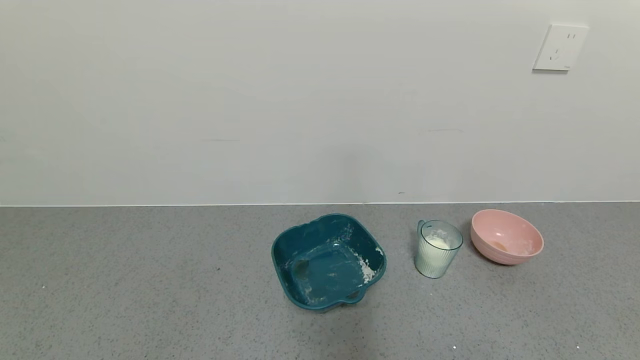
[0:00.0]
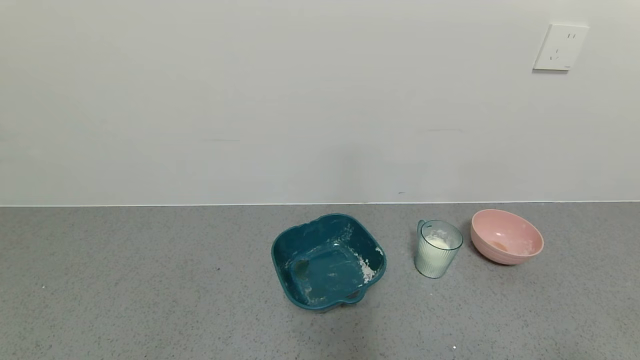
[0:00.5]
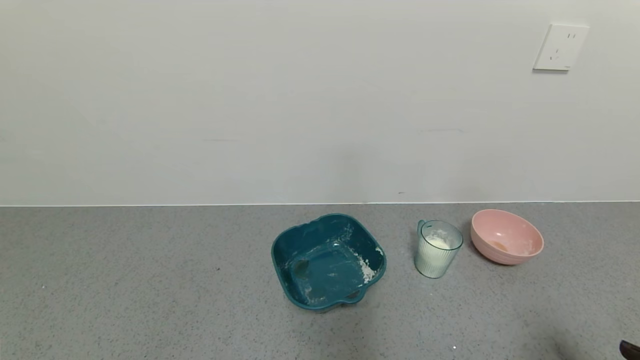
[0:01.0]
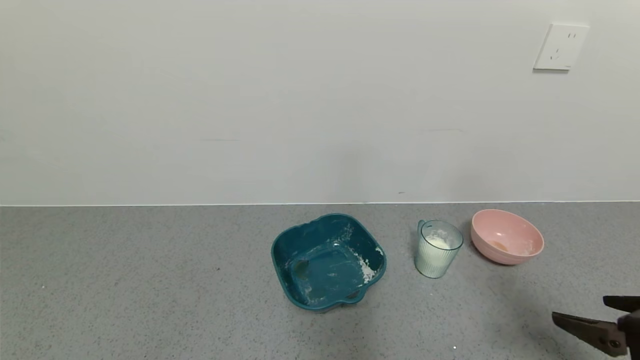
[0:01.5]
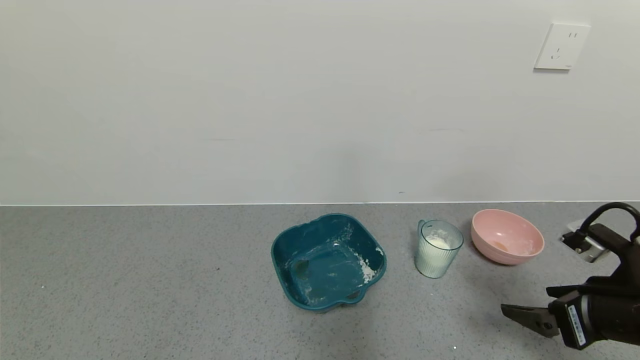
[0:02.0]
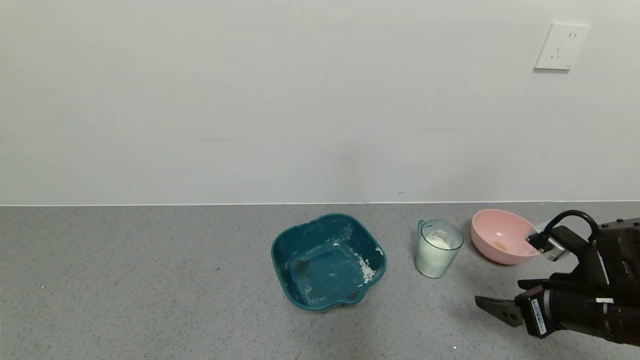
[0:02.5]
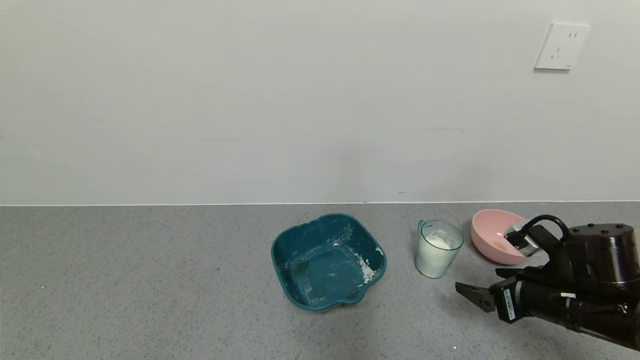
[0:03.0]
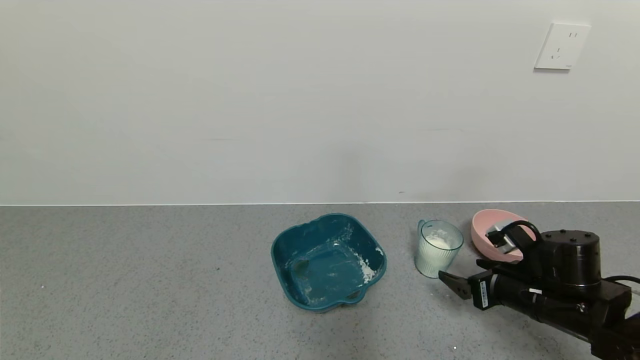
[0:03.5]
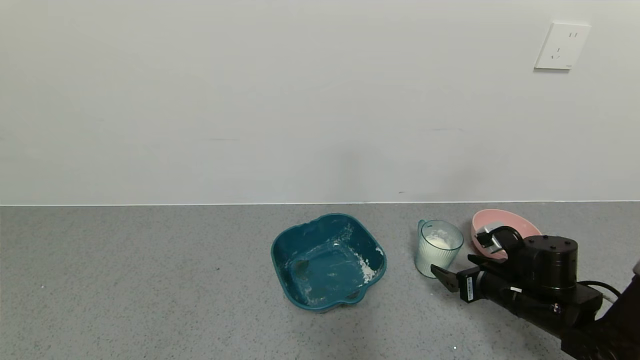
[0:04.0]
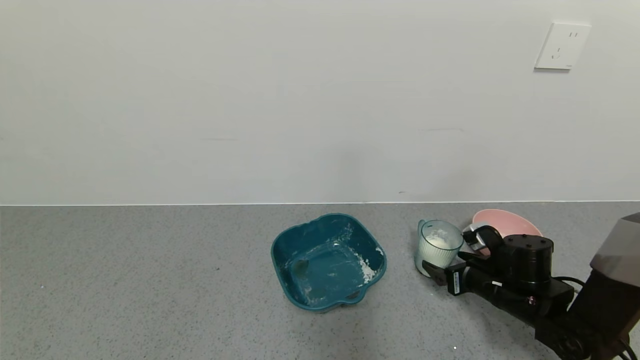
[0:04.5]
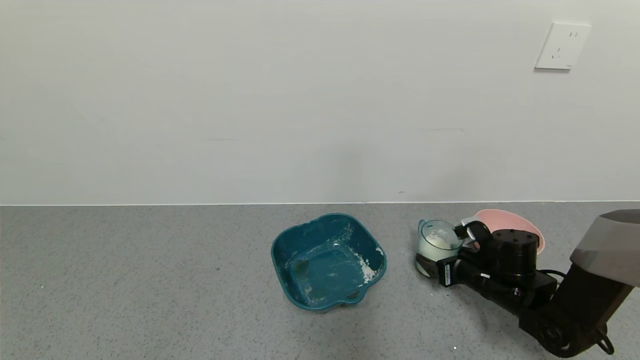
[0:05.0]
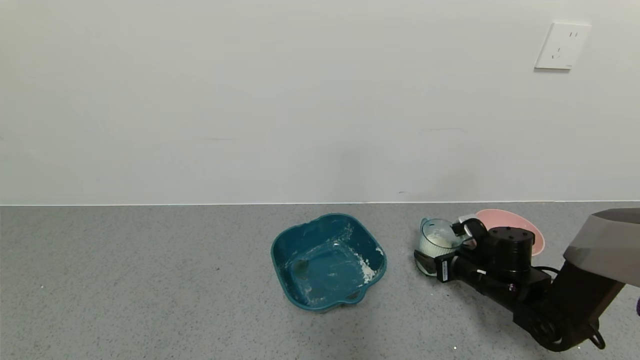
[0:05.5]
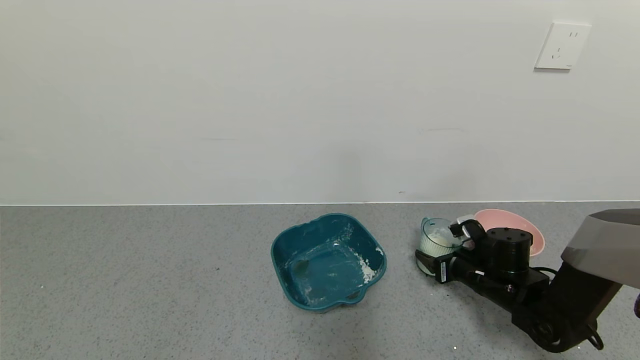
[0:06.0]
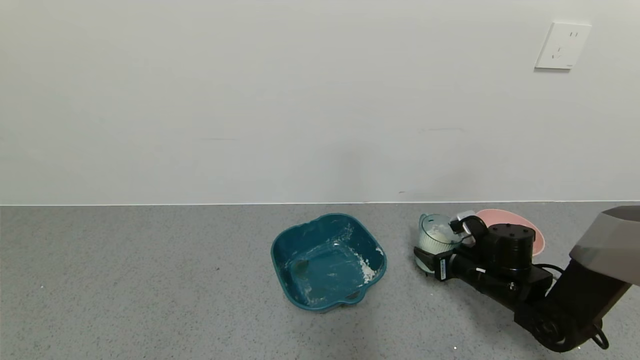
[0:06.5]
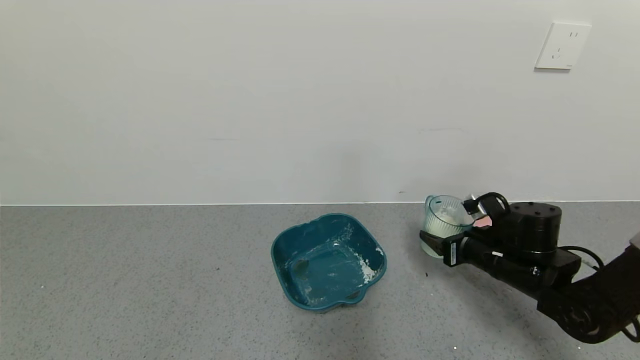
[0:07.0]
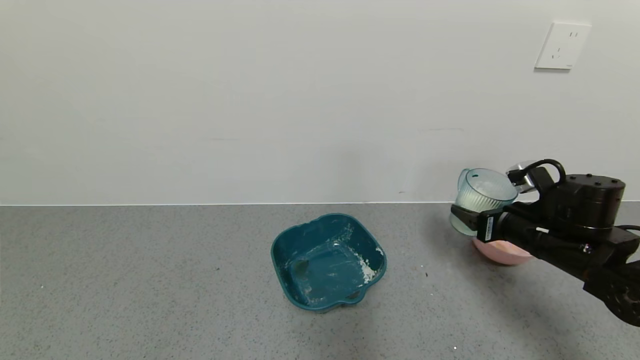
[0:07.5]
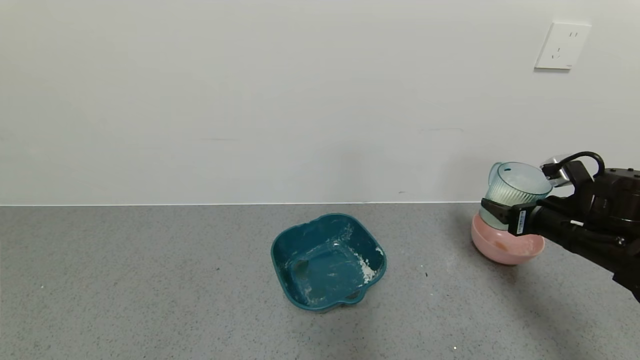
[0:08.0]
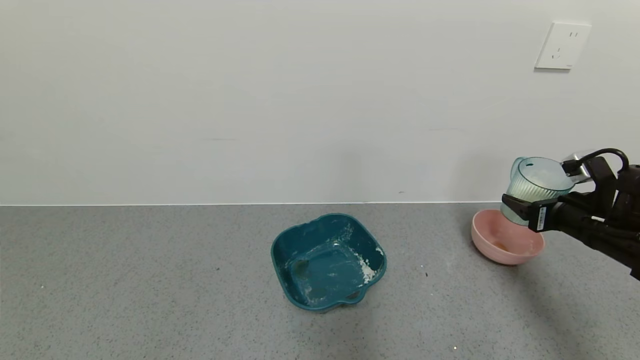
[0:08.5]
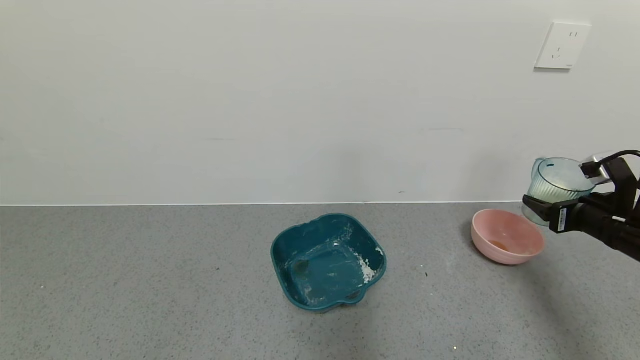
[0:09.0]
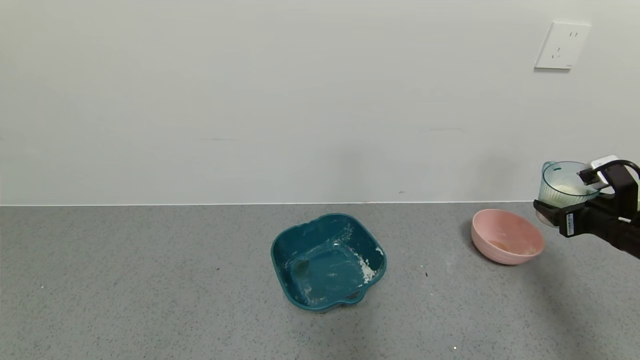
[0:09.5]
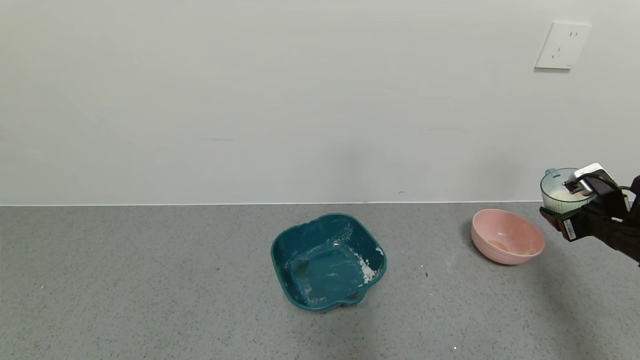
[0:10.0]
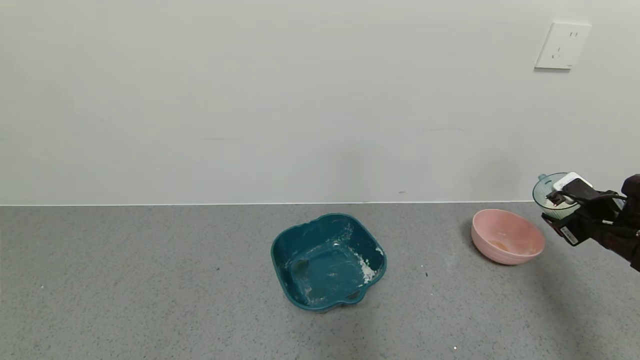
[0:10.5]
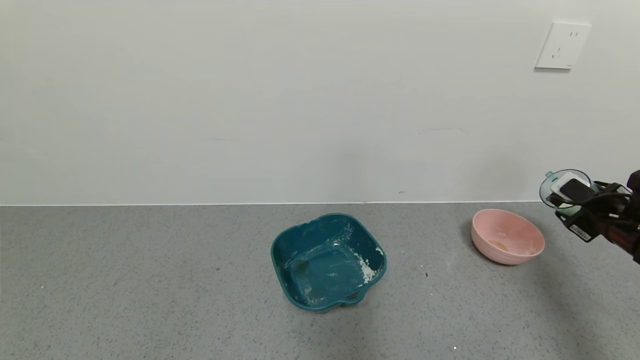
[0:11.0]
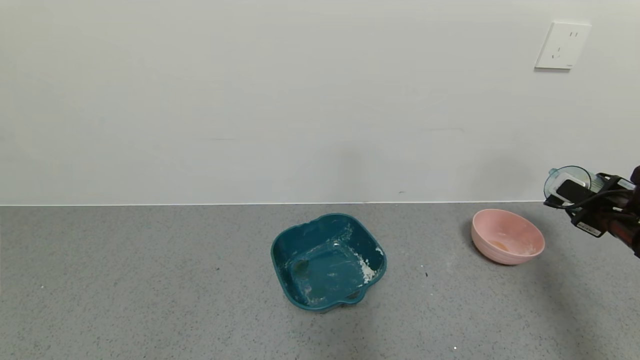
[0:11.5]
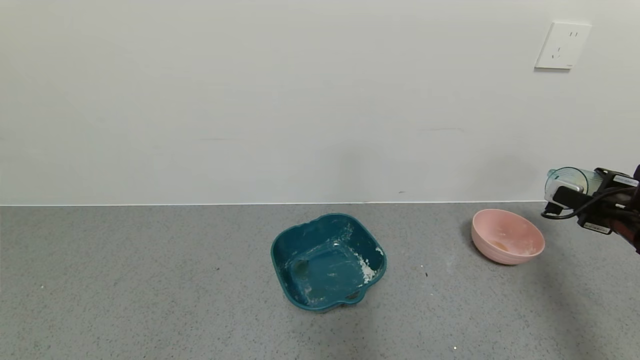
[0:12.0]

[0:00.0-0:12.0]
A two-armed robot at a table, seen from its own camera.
Task of the whole recording: use a gripper to pick up the cup and pour the powder into a bowl or tray.
Step, 0:00.0 to 0:06.0: Grasp the glass of powder with the right gripper.
0:00.0 to 0:02.0: The right gripper moves forward, approximately 20 cm.
0:02.0 to 0:04.0: The right gripper moves downward and forward, approximately 15 cm.
0:04.0 to 0:06.0: The right gripper heads forward, covering roughly 5 cm, and closes.
0:06.0 to 0:08.0: The right gripper shifts approximately 15 cm upward and to the right.
0:08.0 to 0:10.0: The right gripper shifts about 10 cm to the right.

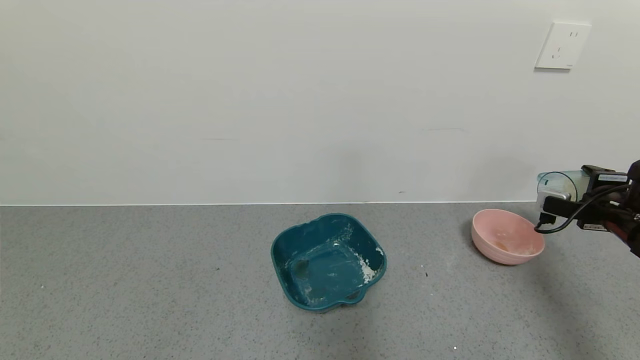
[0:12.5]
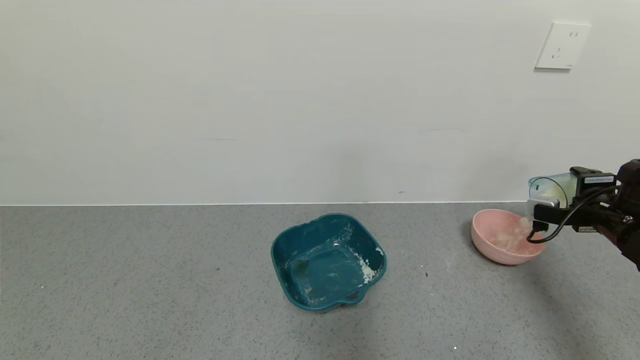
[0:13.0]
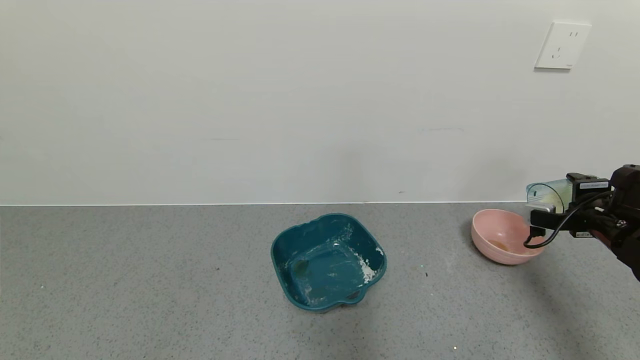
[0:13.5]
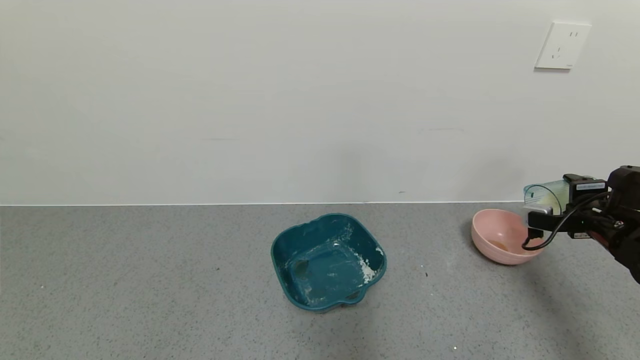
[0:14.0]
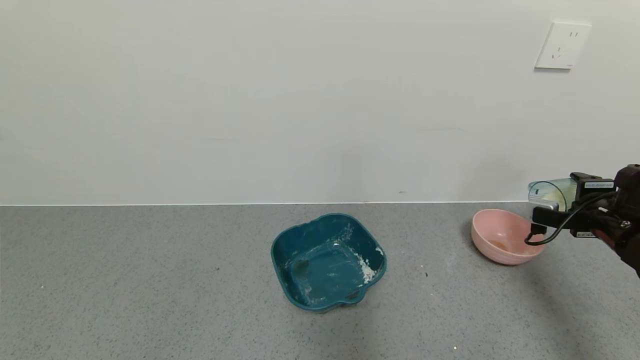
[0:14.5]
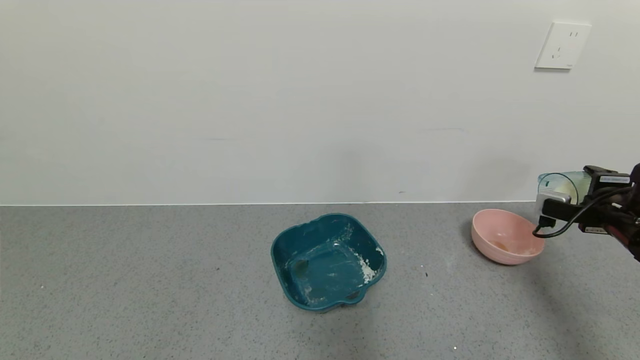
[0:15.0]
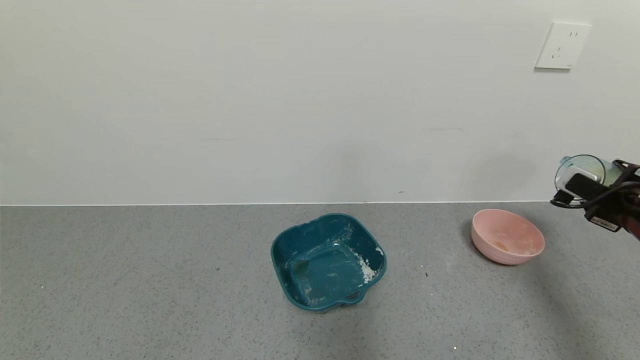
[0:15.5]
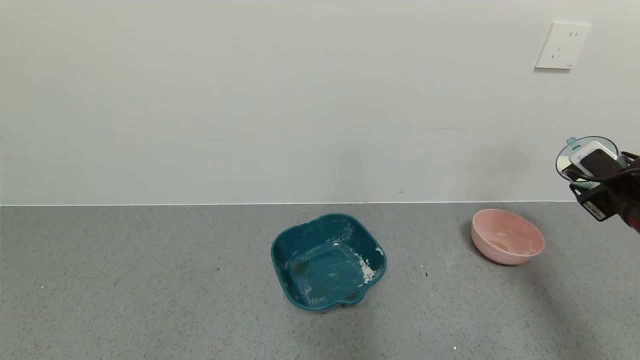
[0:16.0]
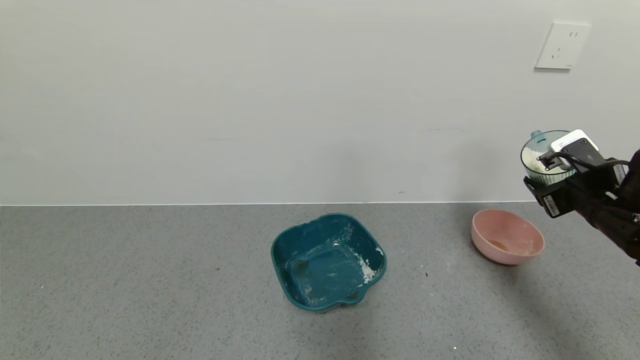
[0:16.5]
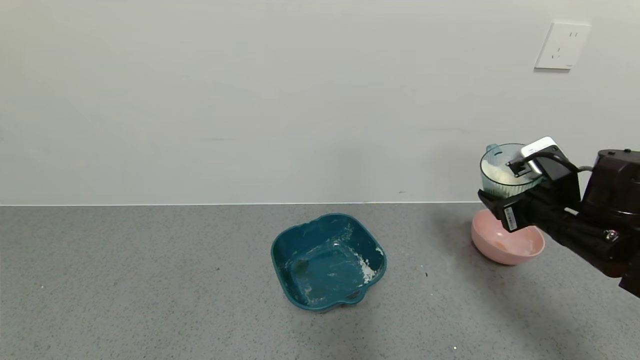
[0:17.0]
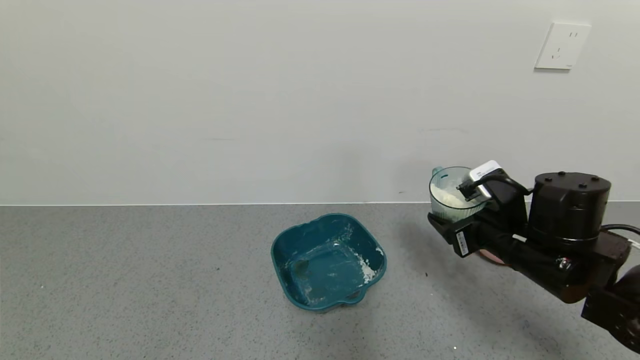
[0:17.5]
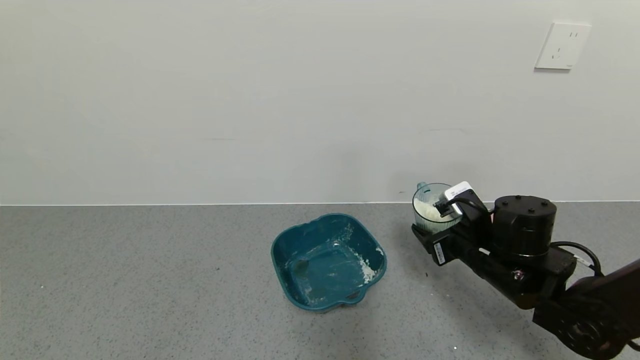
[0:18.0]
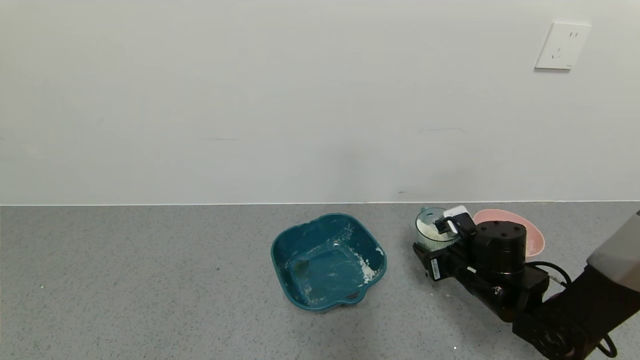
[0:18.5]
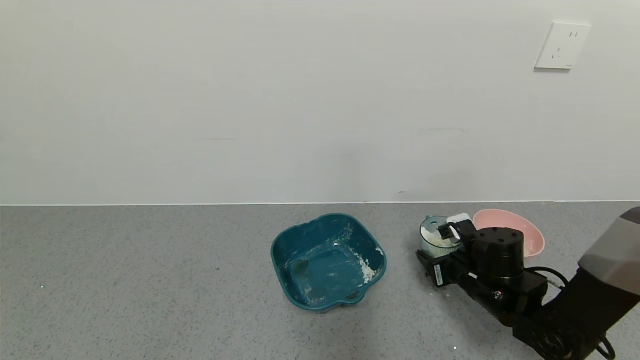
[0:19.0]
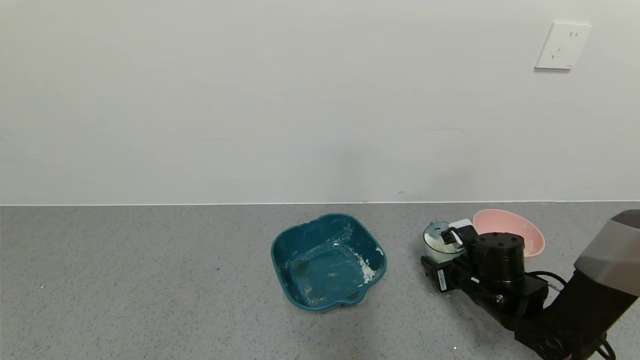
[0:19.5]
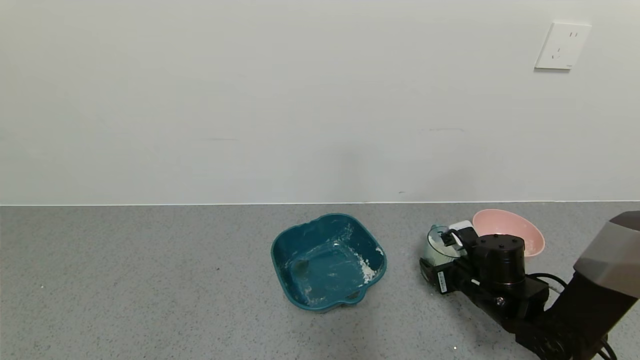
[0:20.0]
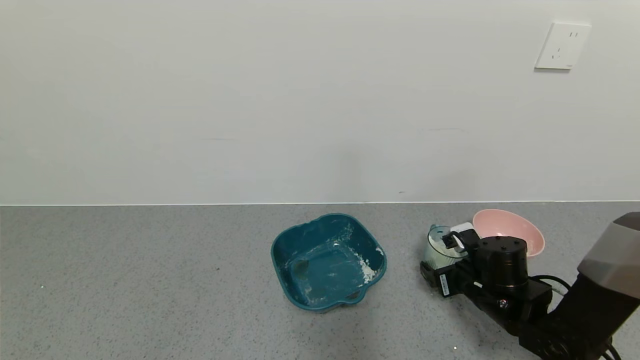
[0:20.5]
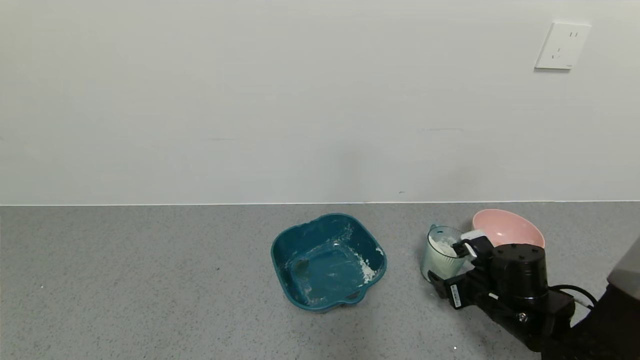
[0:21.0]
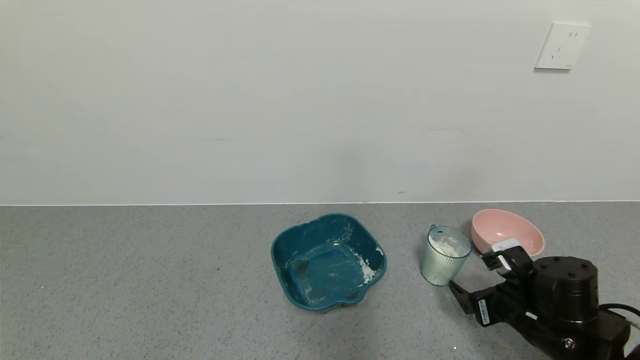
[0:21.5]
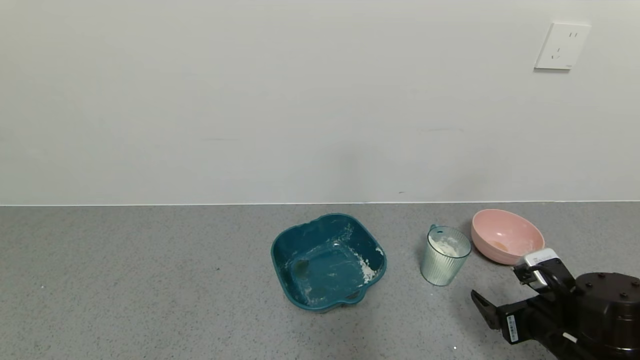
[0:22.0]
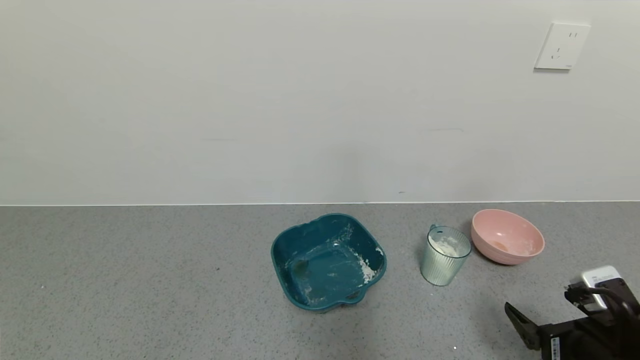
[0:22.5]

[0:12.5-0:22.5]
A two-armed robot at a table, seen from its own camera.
Task of the whole recording: use a gripper to pick up the cup and pour the powder into a bowl or tray.
Step, 0:12.5 to 0:14.5: Pour the powder into the pink bowl with the right gripper.
Step, 0:15.0 to 0:21.0: Place the glass cup down with the right gripper.
0:12.5 to 0:14.5: There are only small adjustments of the grippers.
0:14.5 to 0:16.5: The right gripper is displaced to the left by about 5 cm.
0:16.5 to 0:18.5: The right gripper travels to the left and downward by roughly 20 cm.
0:18.5 to 0:20.5: The right gripper opens.
0:20.5 to 0:22.5: The right gripper is displaced backward and to the right by some 15 cm.
